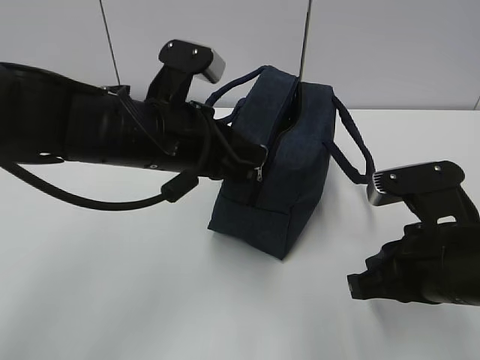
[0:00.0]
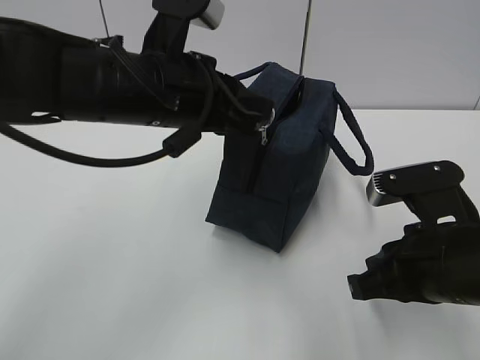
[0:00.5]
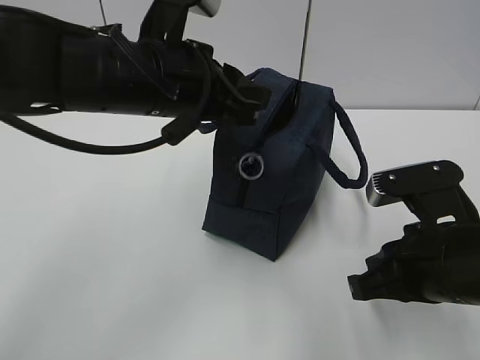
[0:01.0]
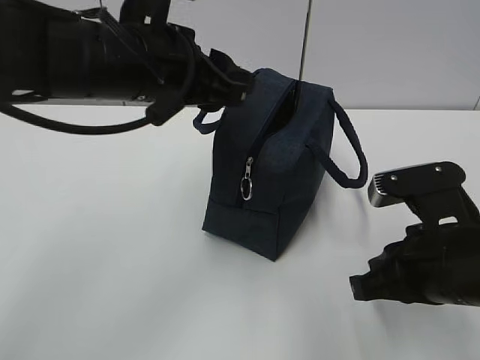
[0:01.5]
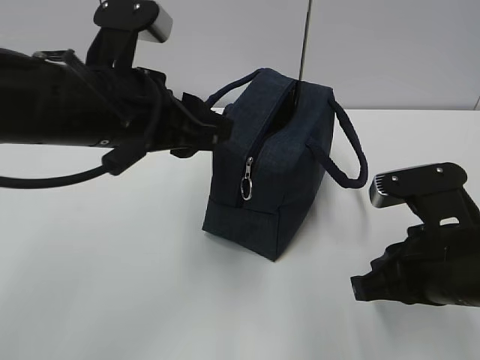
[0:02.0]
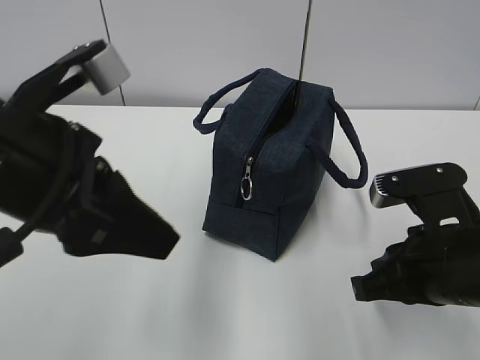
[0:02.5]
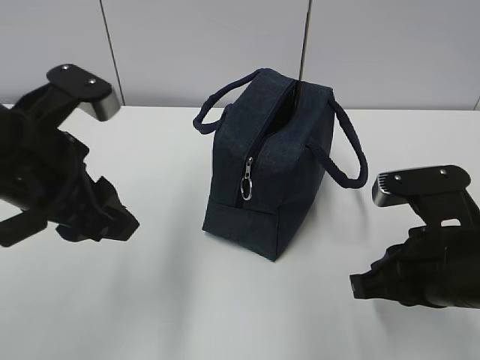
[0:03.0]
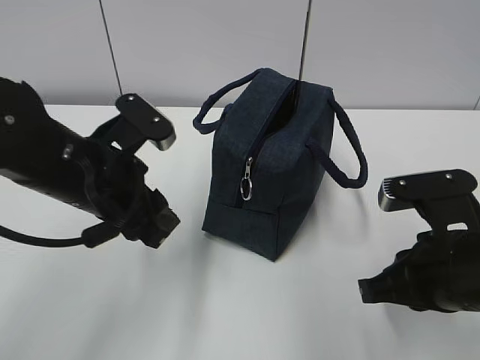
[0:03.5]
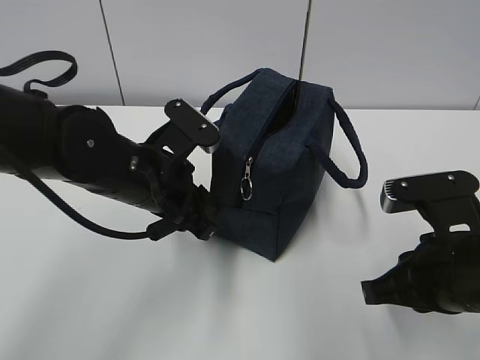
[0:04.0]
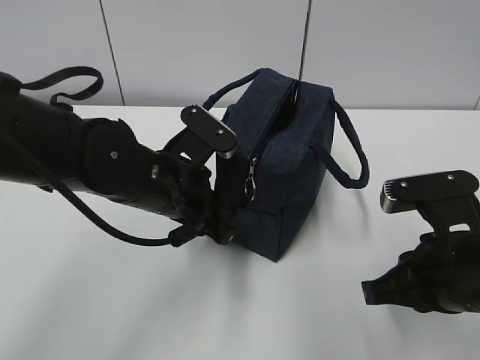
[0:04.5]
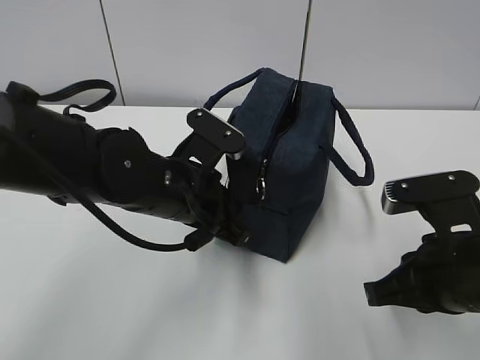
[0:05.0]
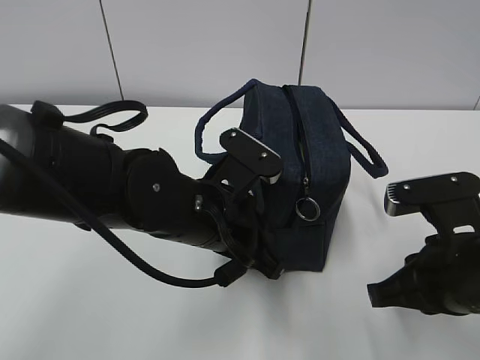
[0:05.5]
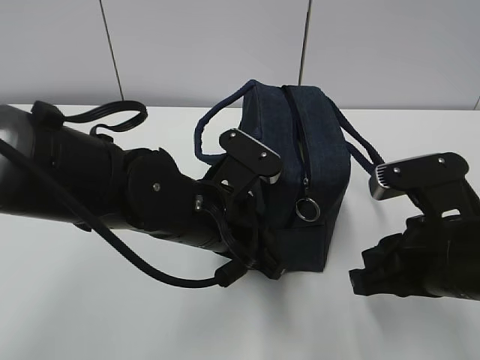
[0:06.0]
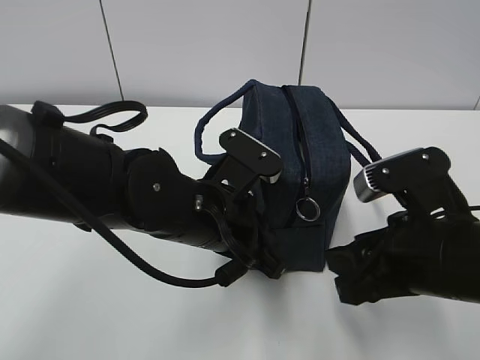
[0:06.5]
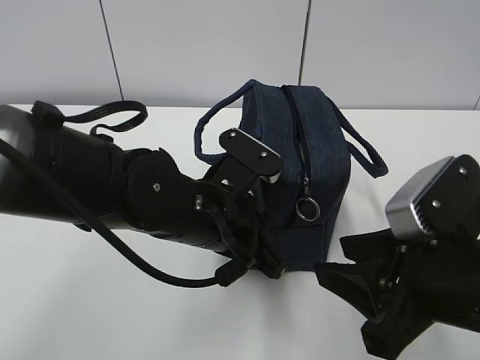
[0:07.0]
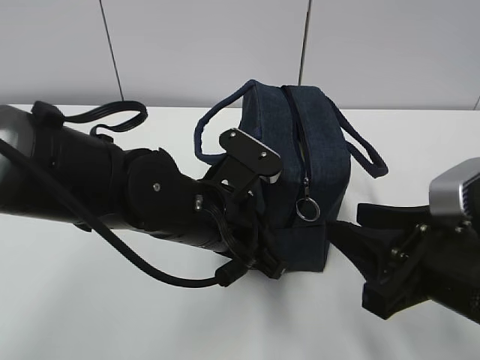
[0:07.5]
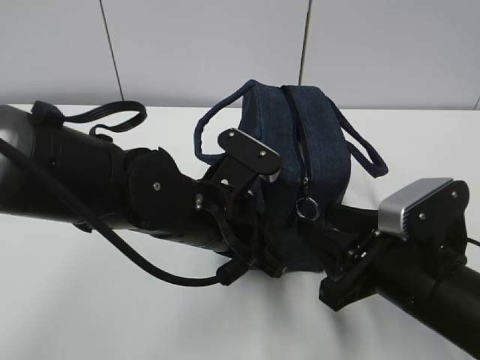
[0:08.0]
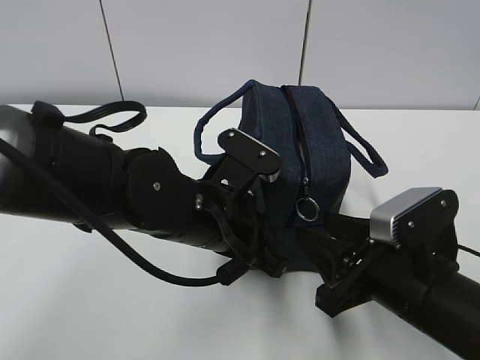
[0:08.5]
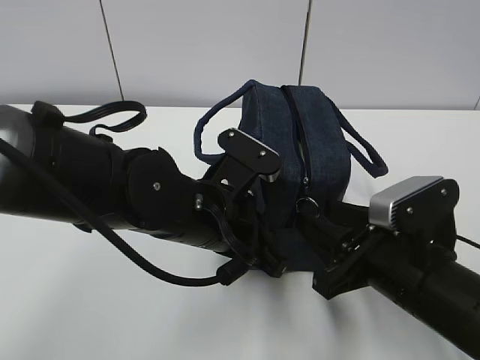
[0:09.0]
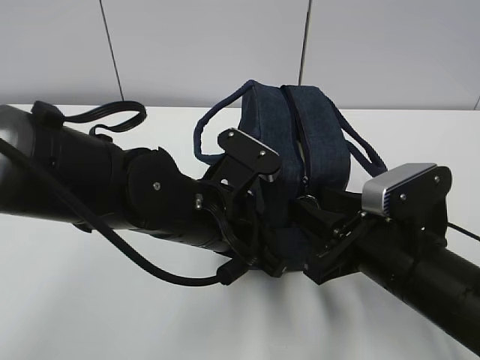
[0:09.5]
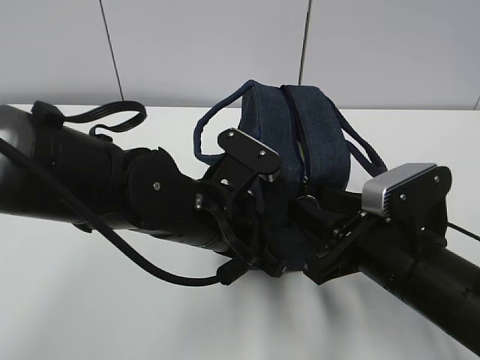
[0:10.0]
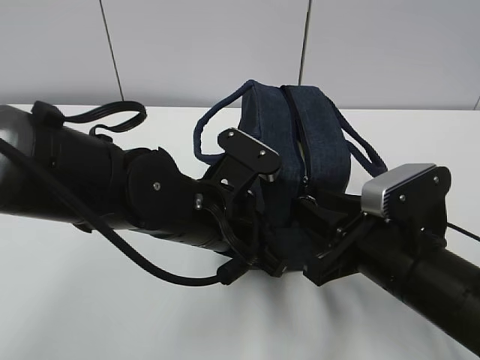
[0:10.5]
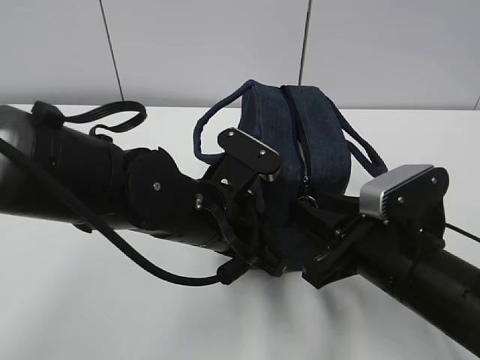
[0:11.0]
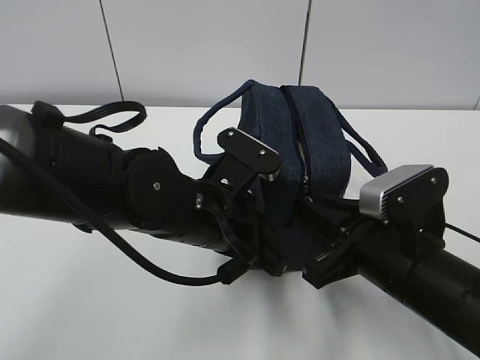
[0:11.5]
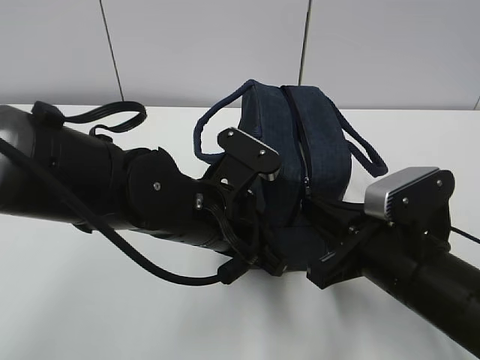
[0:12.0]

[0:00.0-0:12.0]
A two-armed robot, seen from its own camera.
0:00.0 to 0:02.0: The left gripper moves approximately 5 cm, and opens up.
0:02.0 to 0:04.0: The left gripper shifts about 10 cm downward.
0:04.0 to 0:06.0: The left gripper is displaced to the right by about 5 cm, and closes its fingers.
0:06.0 to 0:08.0: The right gripper opens its fingers.
0:08.0 to 0:10.0: The grippers make only small movements.
0:10.0 to 0:12.0: The right gripper closes its fingers.

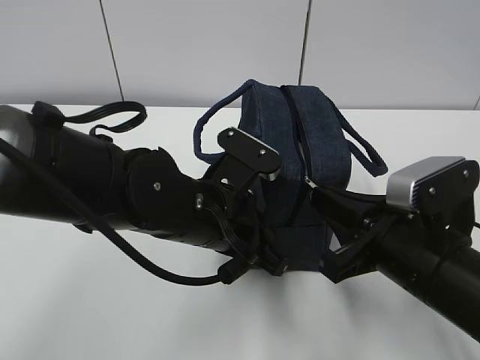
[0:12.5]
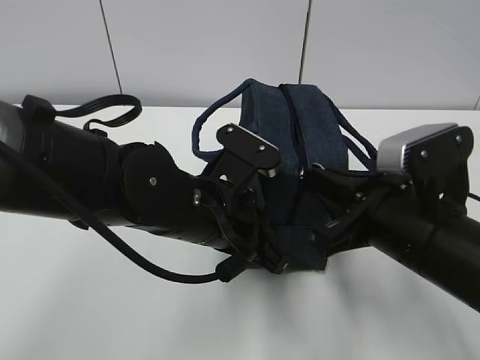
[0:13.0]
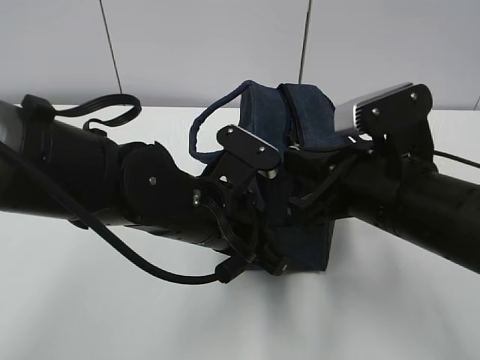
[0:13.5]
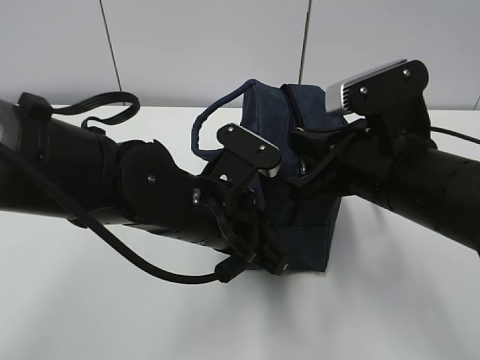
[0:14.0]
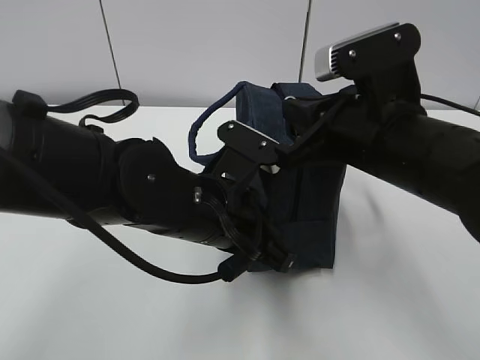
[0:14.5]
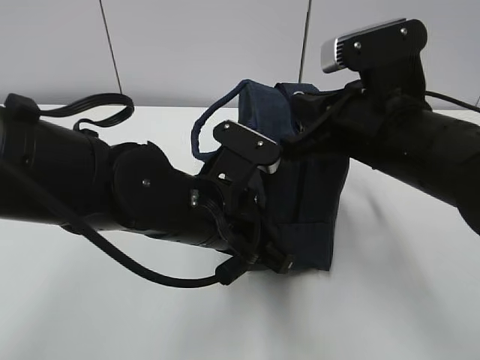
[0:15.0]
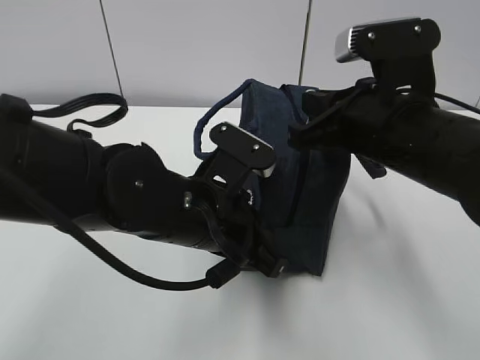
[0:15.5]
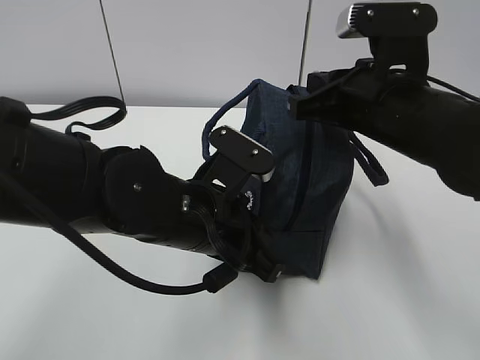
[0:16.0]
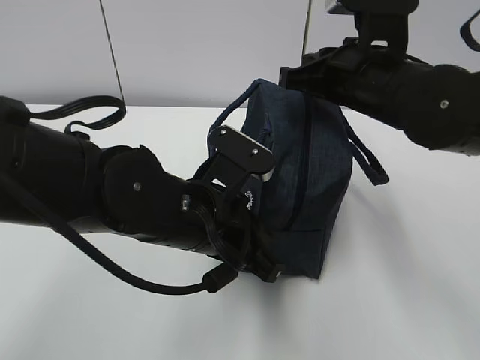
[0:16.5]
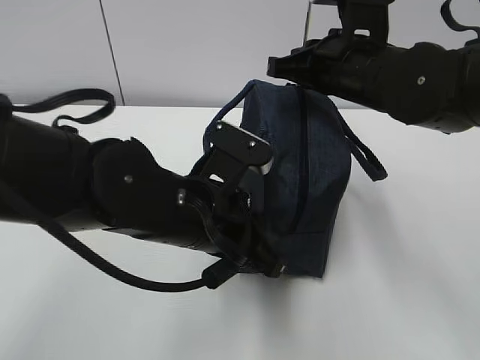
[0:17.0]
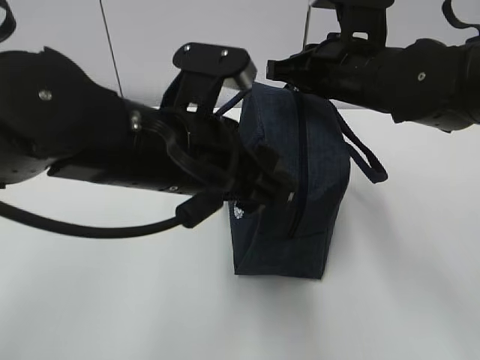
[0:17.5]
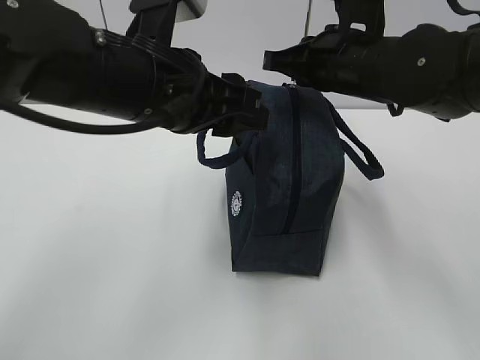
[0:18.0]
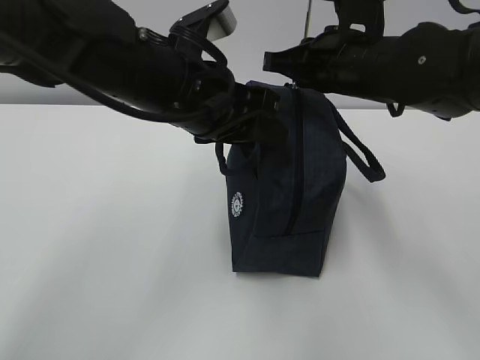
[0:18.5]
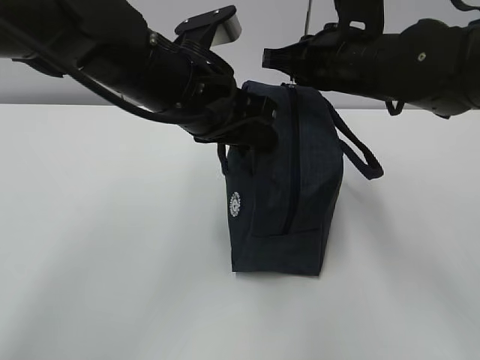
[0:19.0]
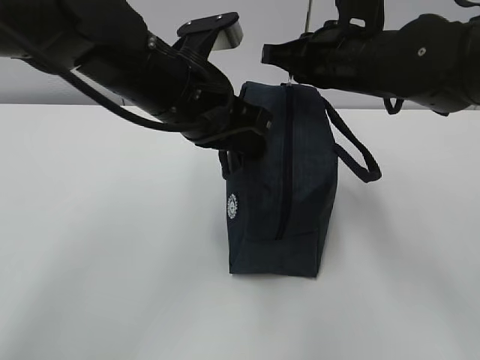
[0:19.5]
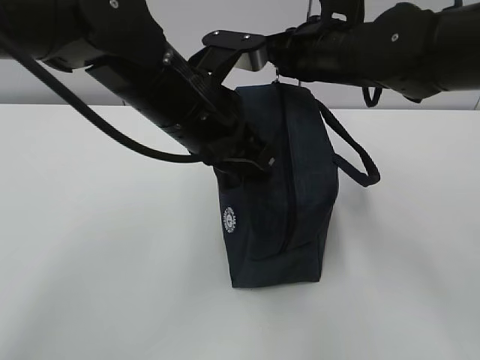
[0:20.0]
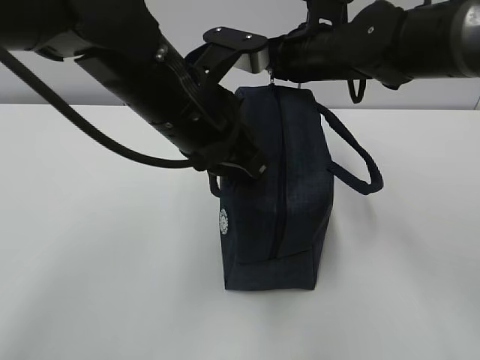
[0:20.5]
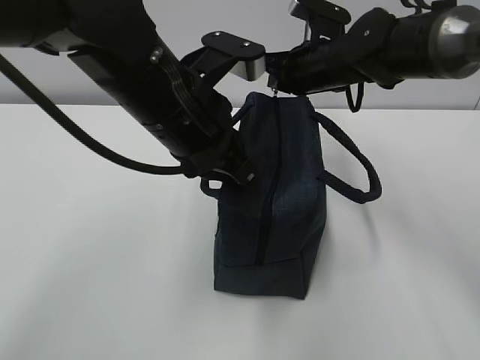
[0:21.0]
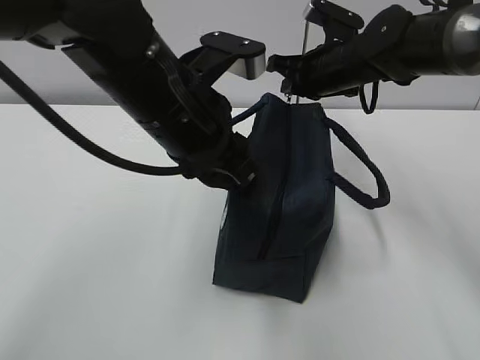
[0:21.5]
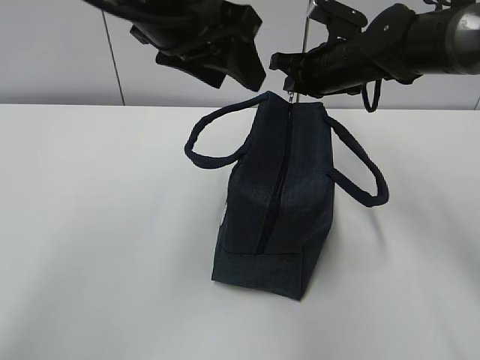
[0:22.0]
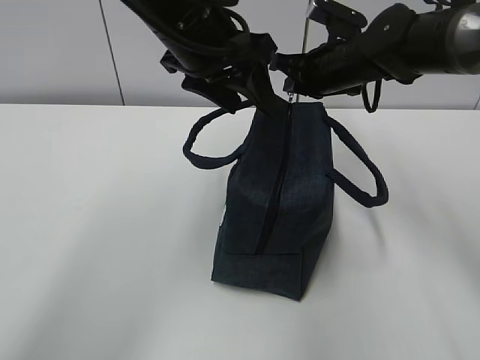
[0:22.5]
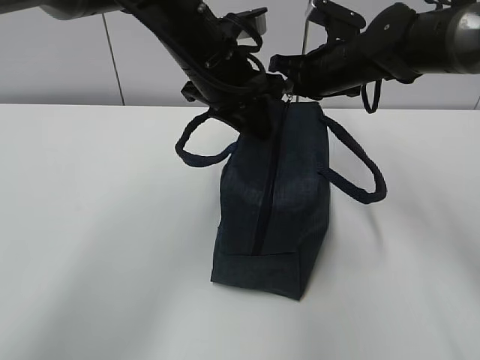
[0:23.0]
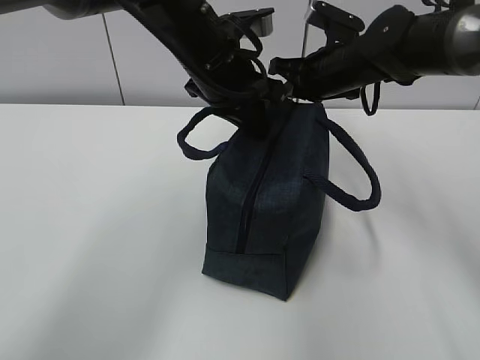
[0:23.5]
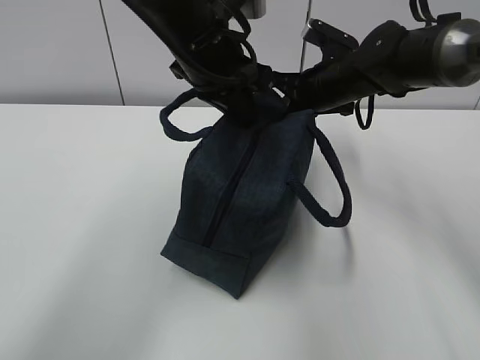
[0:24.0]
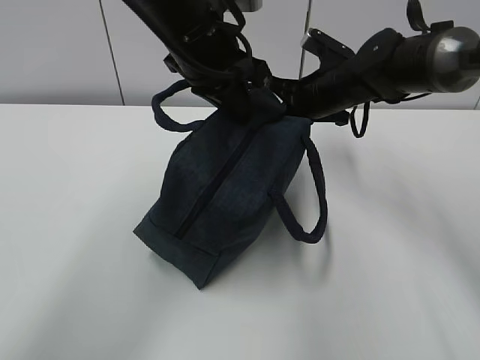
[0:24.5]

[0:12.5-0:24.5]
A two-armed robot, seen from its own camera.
0:12.5 to 0:14.5: The right gripper travels upward and forward by some 10 cm.
0:14.5 to 0:16.5: The right gripper heads forward, covering roughly 10 cm.
0:16.5 to 0:18.5: The left gripper travels upward and forward by about 10 cm, and opens.
0:18.5 to 0:20.5: The left gripper closes. Meanwhile the right gripper is displaced forward by roughly 5 cm.
0:20.5 to 0:22.5: The left gripper shifts approximately 10 cm forward, and opens. The right gripper ends up roughly 5 cm from where it was.
0:22.5 to 0:24.5: The left gripper closes its fingers.

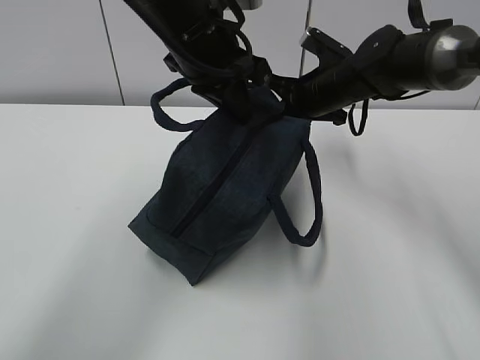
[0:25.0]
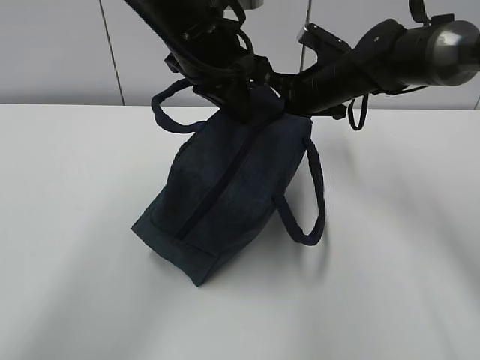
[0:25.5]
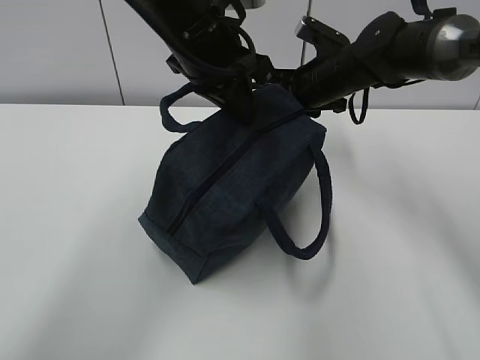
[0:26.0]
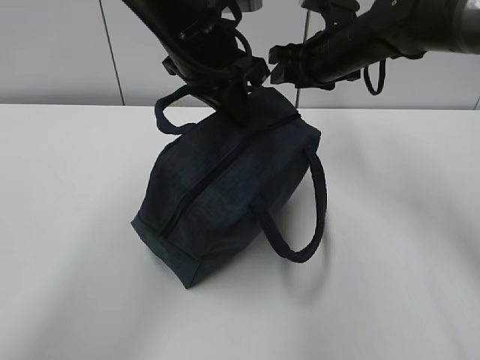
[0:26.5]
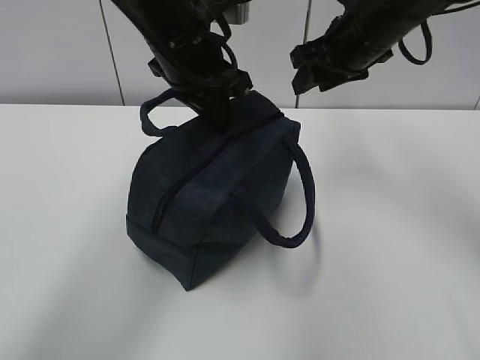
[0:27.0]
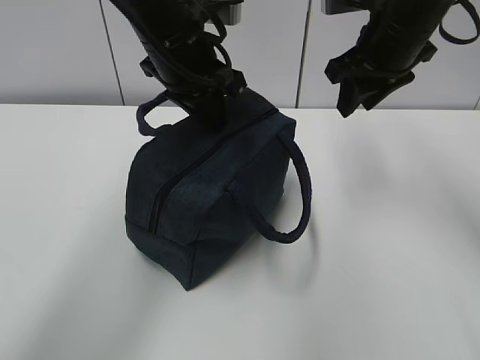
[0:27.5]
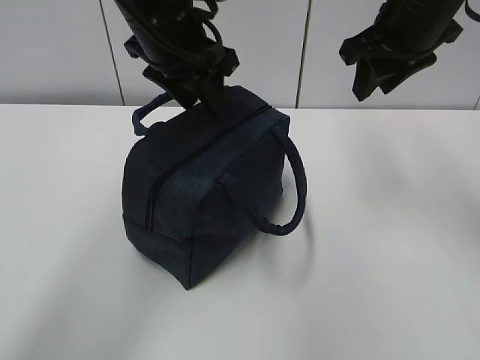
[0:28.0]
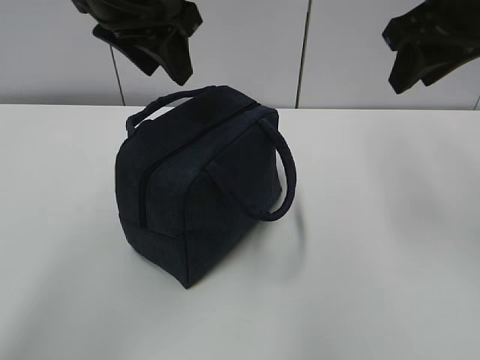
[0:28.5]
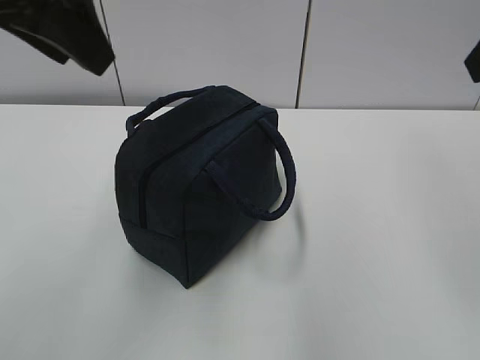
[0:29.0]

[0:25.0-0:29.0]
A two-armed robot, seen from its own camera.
0:25.0 to 0:27.0: The right gripper goes some 10 cm upward, and opens its fingers.
0:27.0 to 0:29.0: The left gripper is displaced upward, backward and to the left by about 20 cm, and opens its fingers, while the right gripper heads backward and upward, covering about 25 cm.
